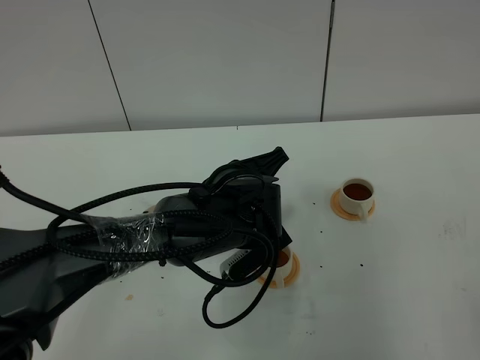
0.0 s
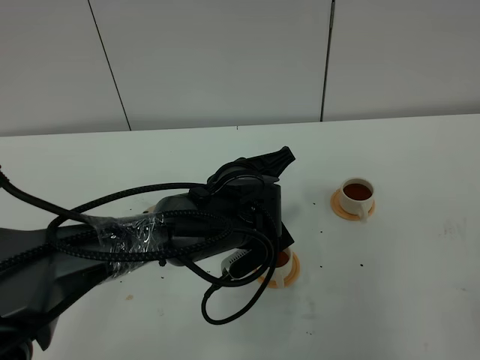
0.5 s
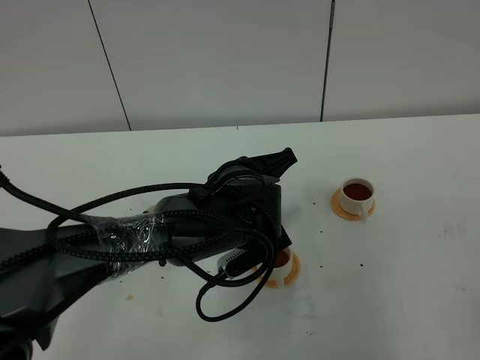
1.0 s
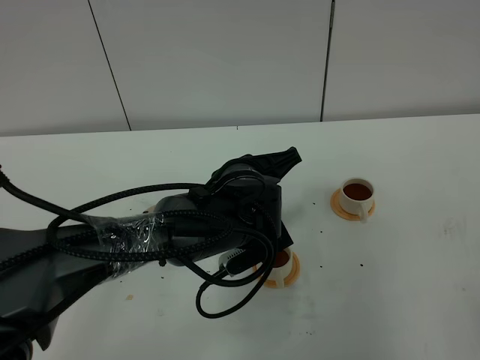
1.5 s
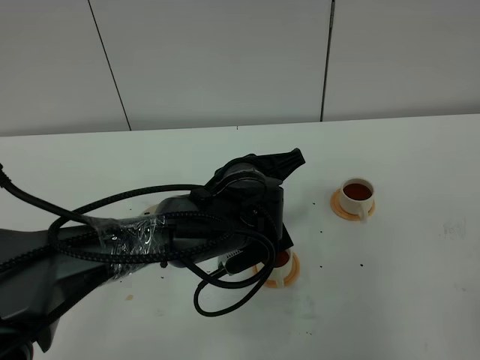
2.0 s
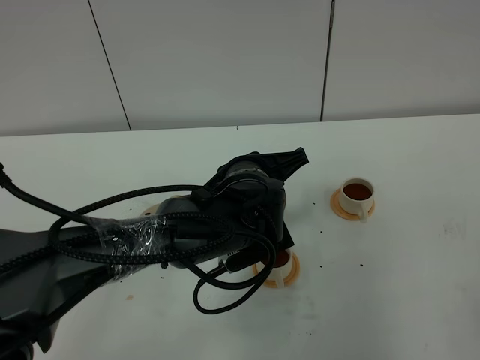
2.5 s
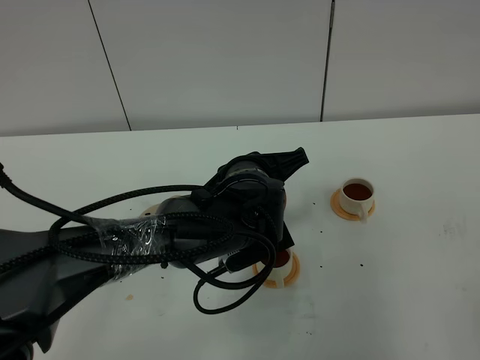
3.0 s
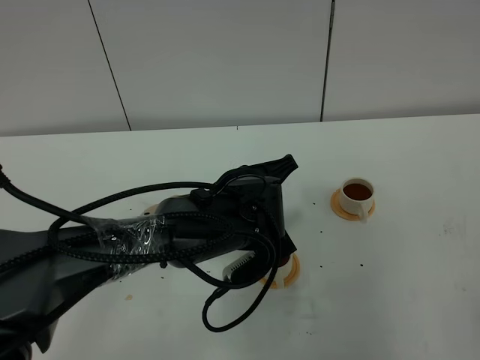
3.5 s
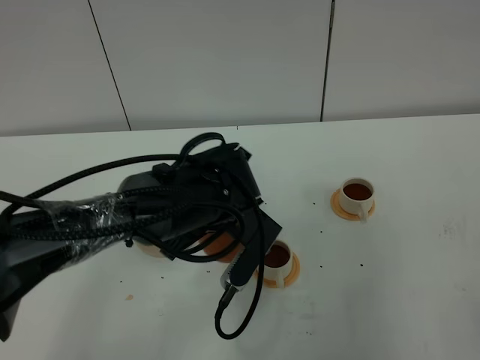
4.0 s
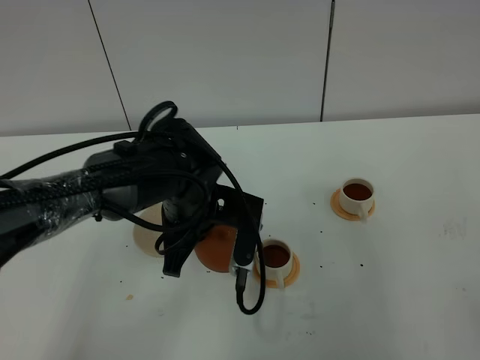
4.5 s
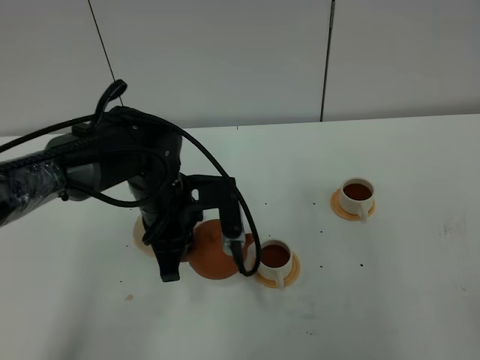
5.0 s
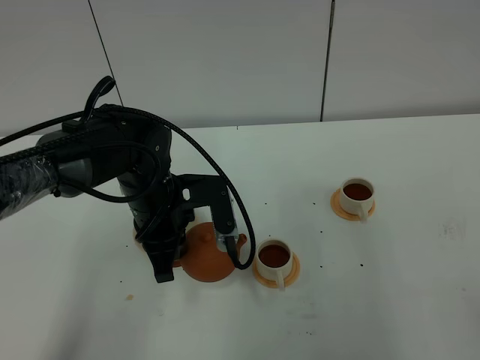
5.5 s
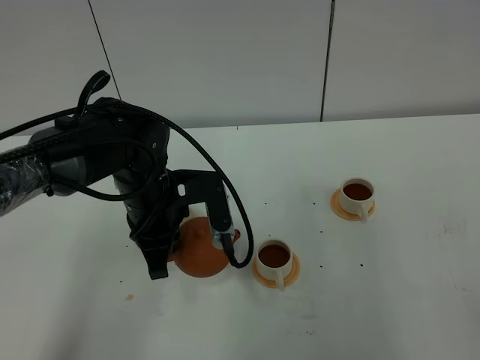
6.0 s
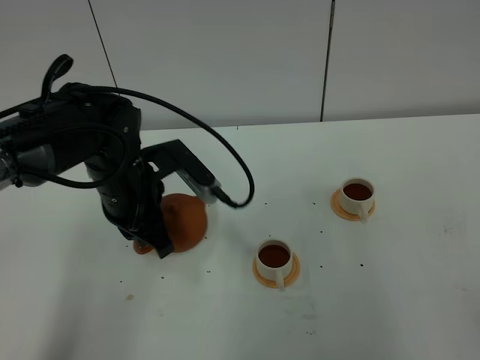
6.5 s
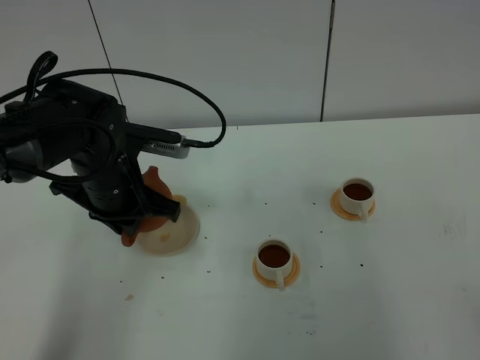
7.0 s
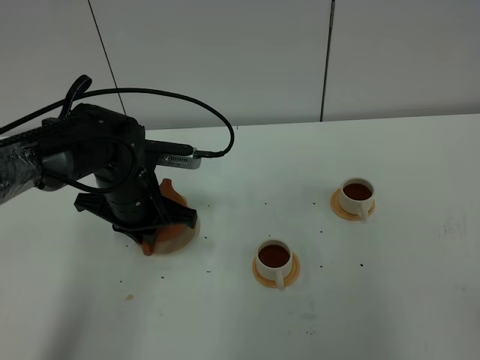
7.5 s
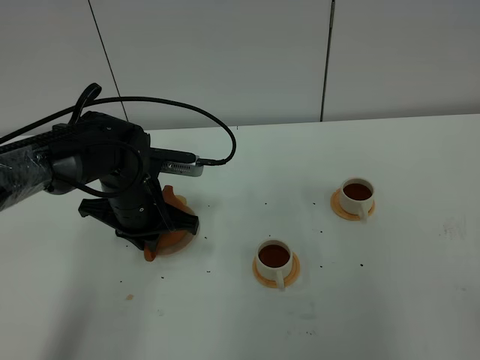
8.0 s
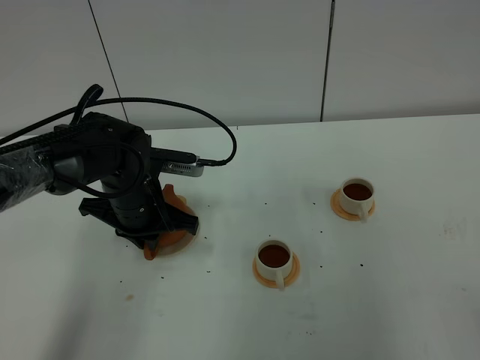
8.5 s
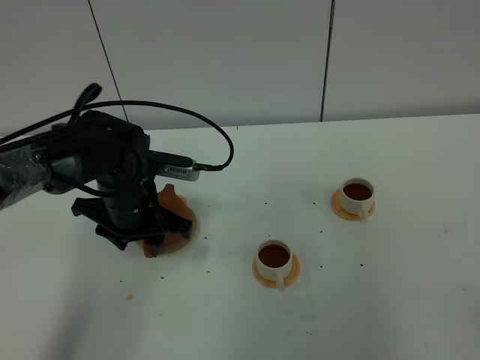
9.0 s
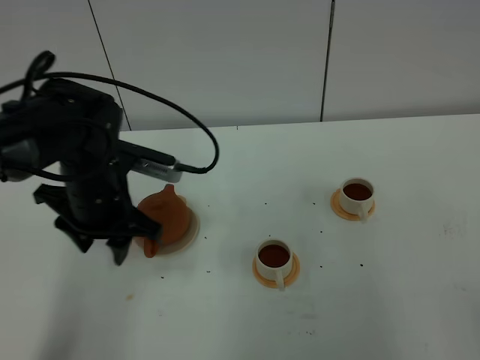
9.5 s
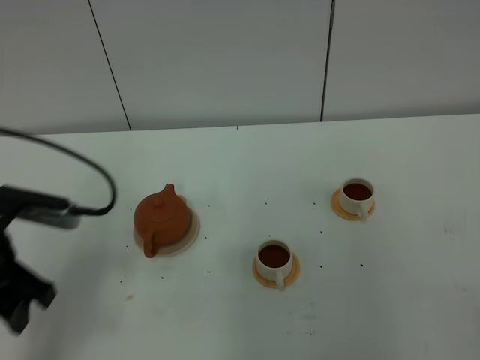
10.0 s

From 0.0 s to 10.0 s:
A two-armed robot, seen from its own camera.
Task of the whole recording: grasp the brown teapot and pour the tea into the two white teacups one by one, put the brown teapot back in its original place.
Step, from 0.0 s to 4.0 s: Pour tea into the teacup with the left gripper.
From 0.0 s to 2.0 s: There are only small adjustments of the grippers.
From 4.0 s to 6.0 s: The left gripper shifts roughly 10 cm to the left.
From 6.0 s to 8.0 s: The left gripper changes place by roughly 5 cm.
From 8.0 s to 10.0 s: The left gripper goes approximately 20 cm backward, to the left and upward, and opens its fingers.

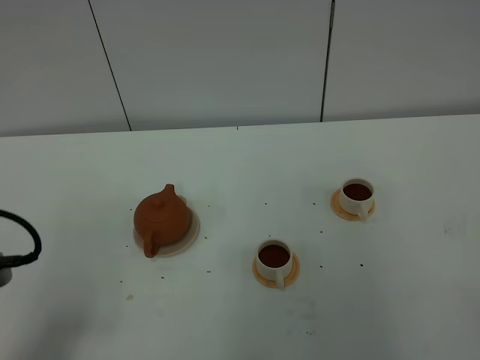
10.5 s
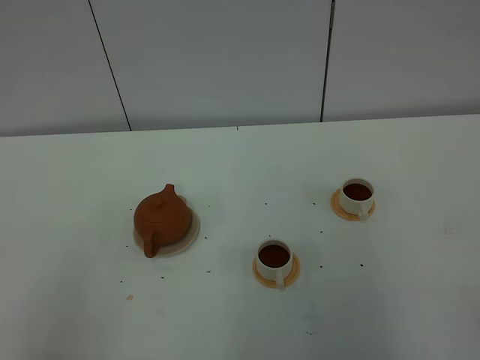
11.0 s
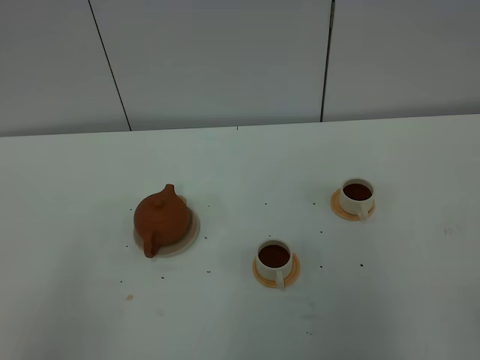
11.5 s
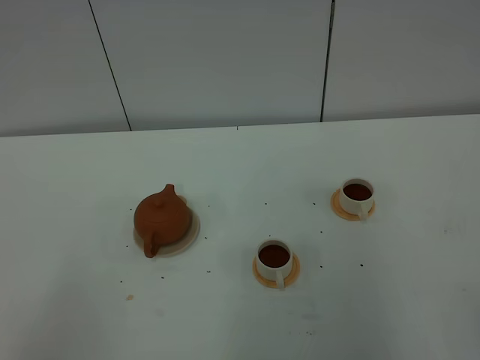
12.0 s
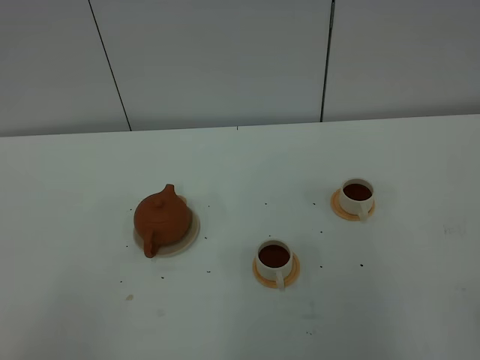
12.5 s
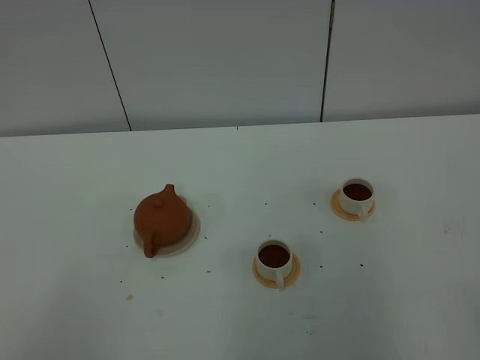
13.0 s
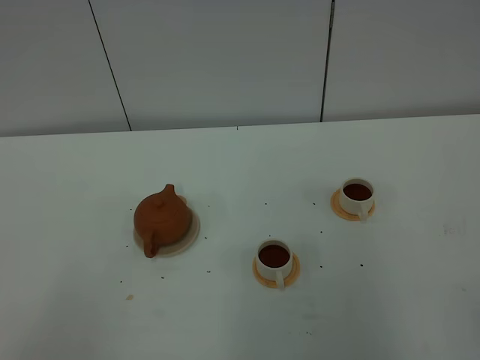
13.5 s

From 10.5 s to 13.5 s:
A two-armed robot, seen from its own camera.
Task of the whole recording: grasp the brown teapot and pour the tea into the two white teacups one by one, put the brown teapot back in its original place.
From 10.5 s to 12.0 s: The left gripper heads backward, covering some 10 cm.
